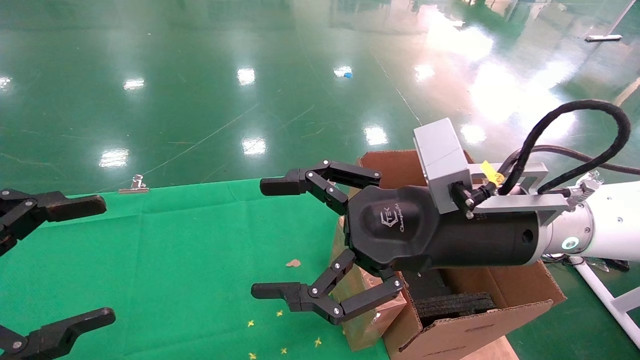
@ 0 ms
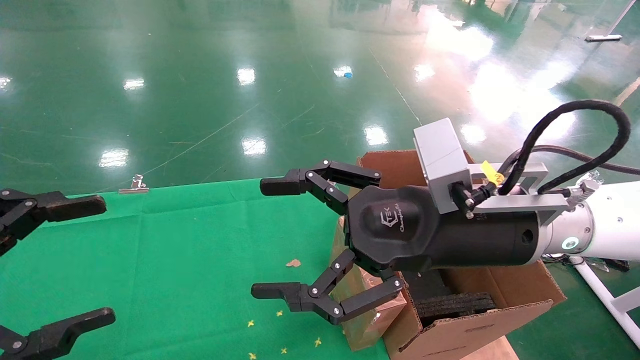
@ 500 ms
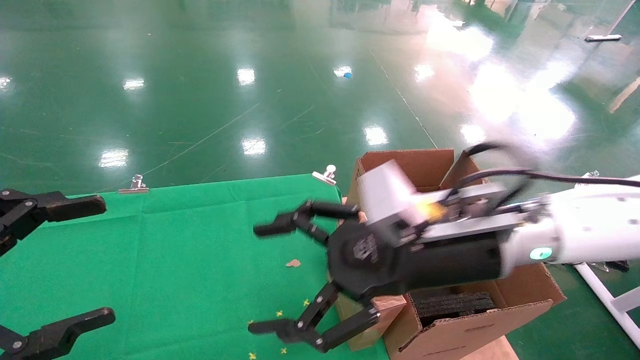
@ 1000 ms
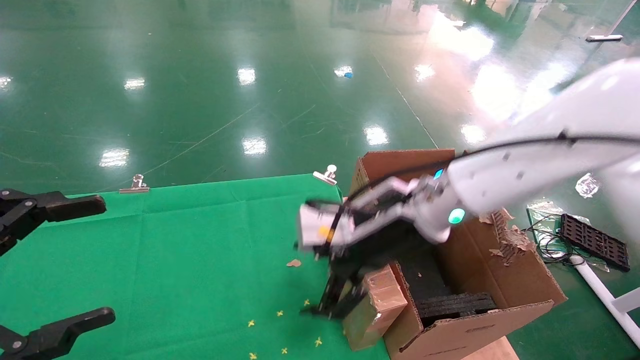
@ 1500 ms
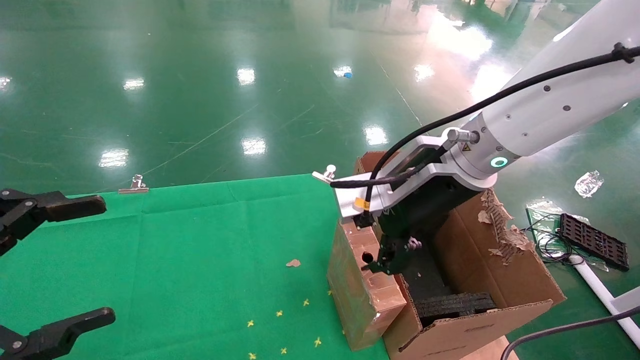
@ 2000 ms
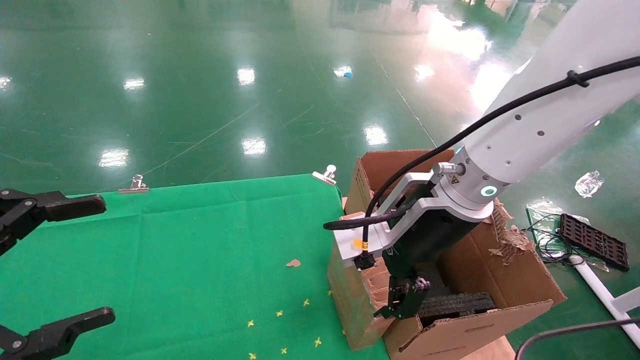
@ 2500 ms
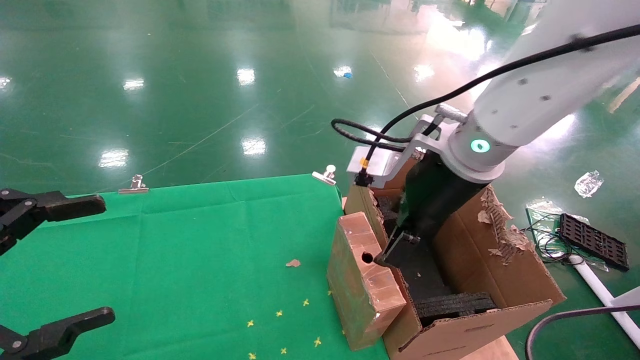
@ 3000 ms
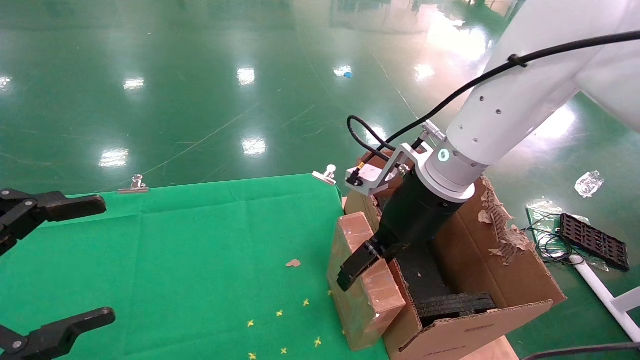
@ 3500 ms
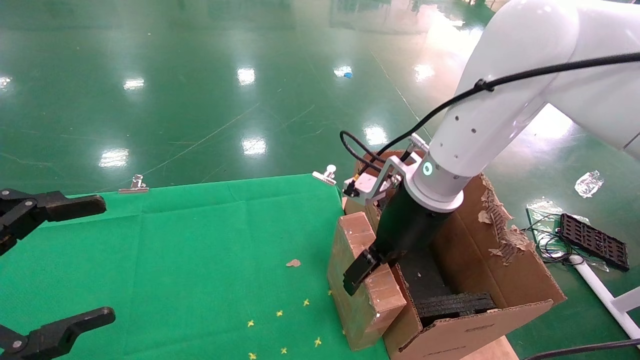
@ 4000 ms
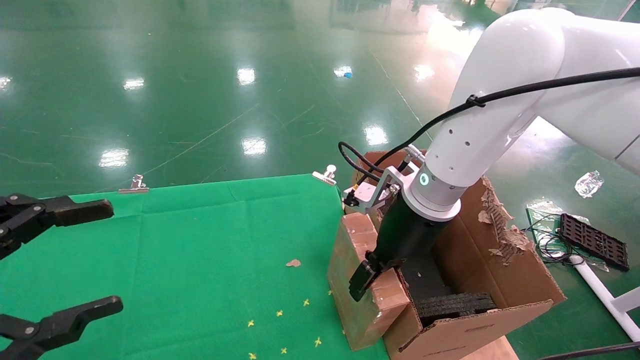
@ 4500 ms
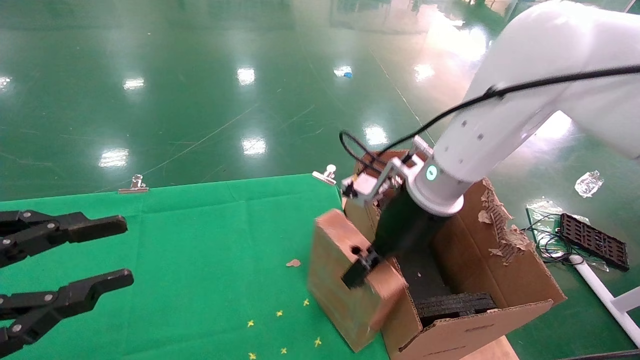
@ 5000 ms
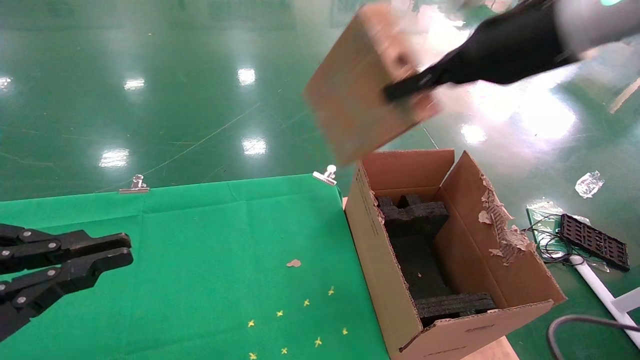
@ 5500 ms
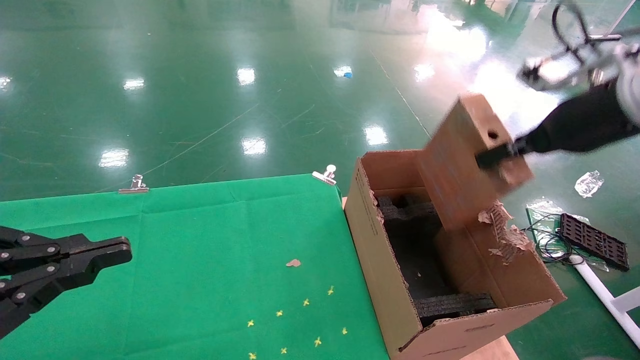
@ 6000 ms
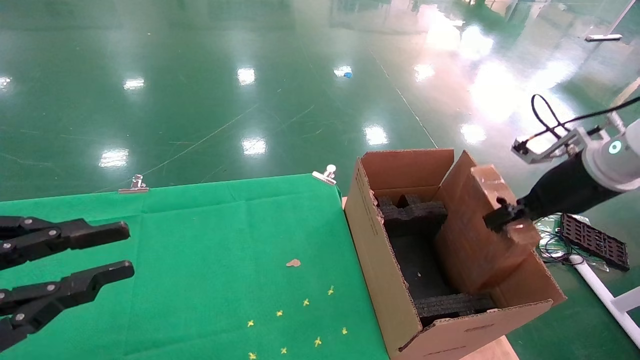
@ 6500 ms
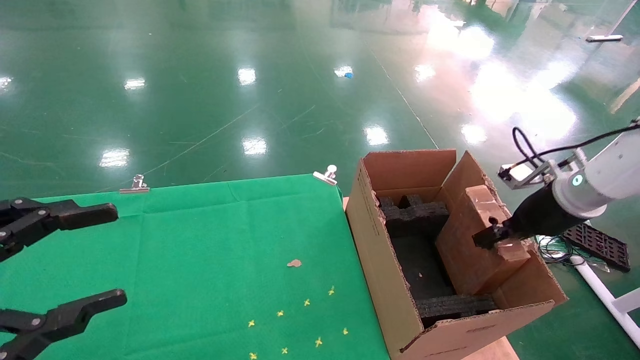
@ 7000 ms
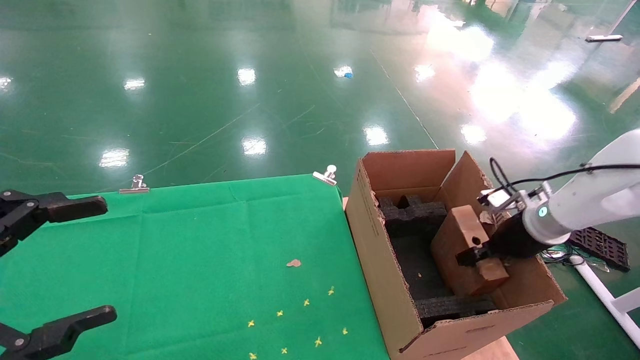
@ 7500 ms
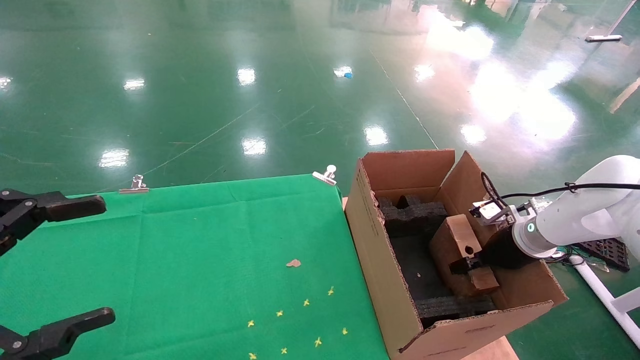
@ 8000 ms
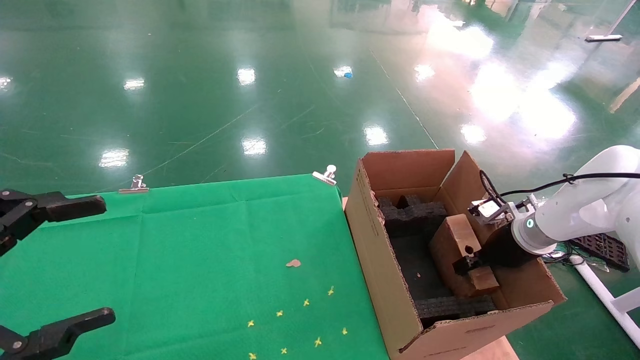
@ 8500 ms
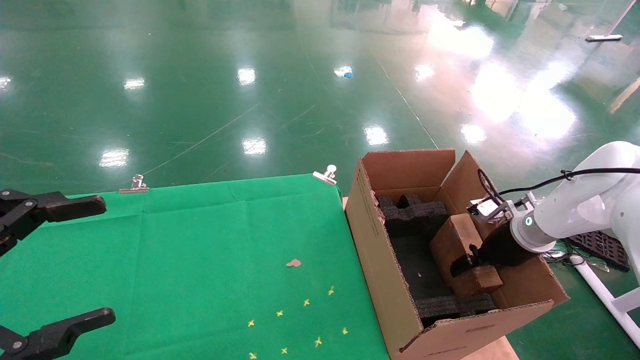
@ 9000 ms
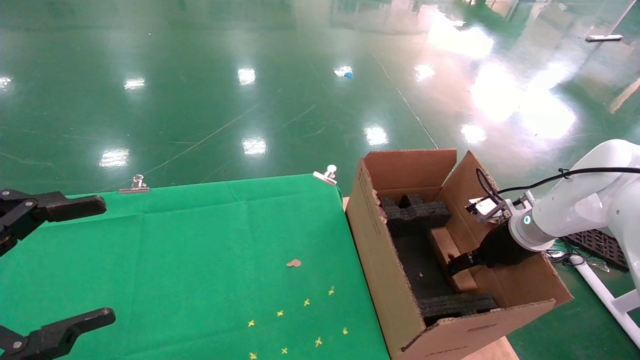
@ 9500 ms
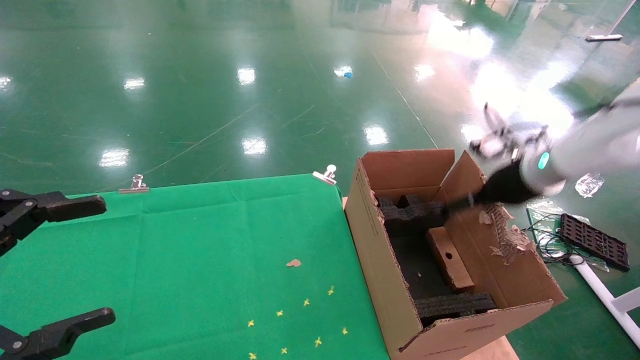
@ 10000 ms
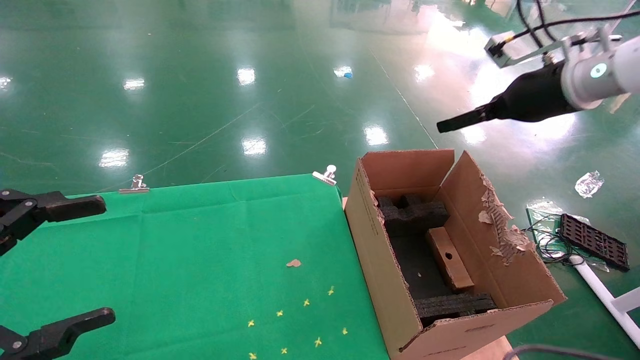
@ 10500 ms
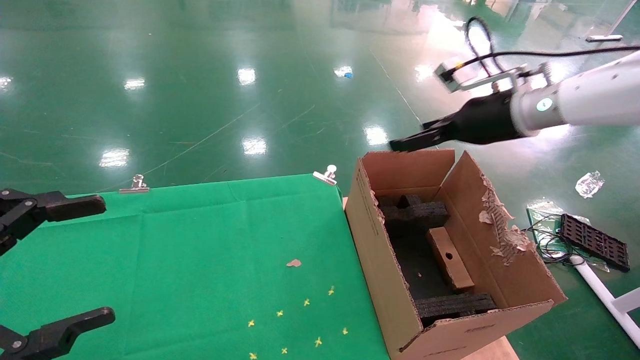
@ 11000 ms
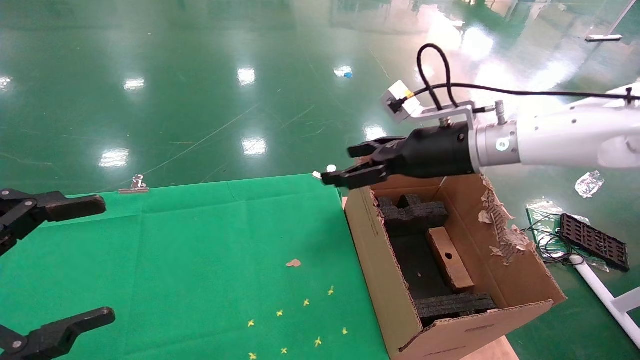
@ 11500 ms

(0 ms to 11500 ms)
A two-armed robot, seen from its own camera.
Task of the whole recording: using a robotic arm to pick up a cardboard box and palace it the carton.
Step, 1000 ms - 4500 ms: Pick up the mouse and the power cord paper box.
Step, 5000 ms - 10000 ms: Place the mouse and the power cord paper box into the container.
0 ms - 2000 ms: The right gripper moves forward, about 5 cm.
2000 ms - 4000 ms: The right gripper changes place by some 5 cm.
4000 ms - 6000 ms: The left gripper closes, while the right gripper heads to the right and upward, covering about 25 cm, and closes its fingers.
6000 ms - 7500 ms: The left gripper opens. The right gripper is displaced downward by roughly 20 cm.
7500 ms - 9500 ms: The right gripper opens up.
9500 ms - 11500 ms: The right gripper goes roughly 20 cm upward and to the left.

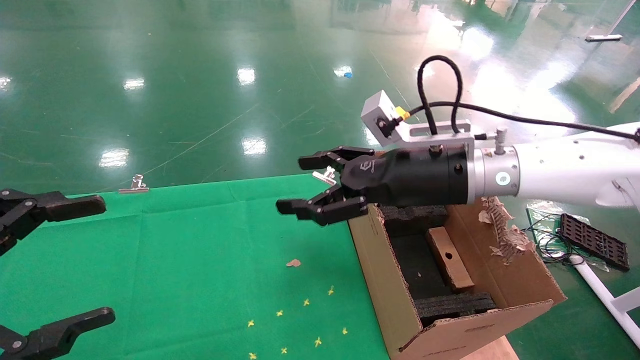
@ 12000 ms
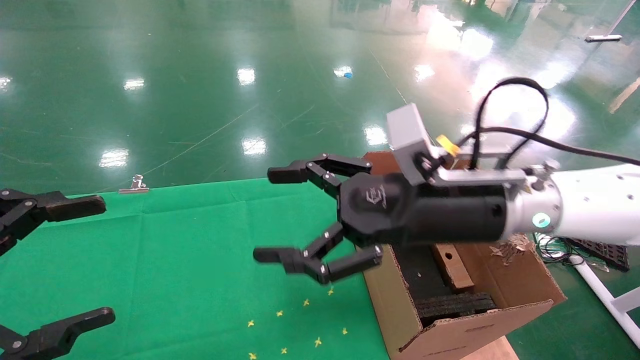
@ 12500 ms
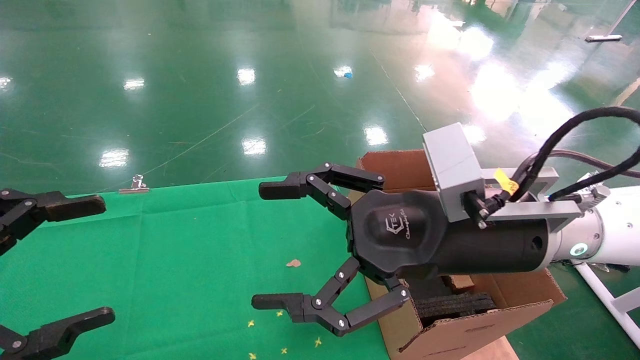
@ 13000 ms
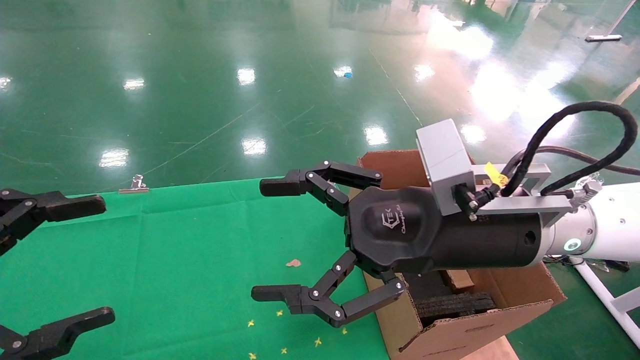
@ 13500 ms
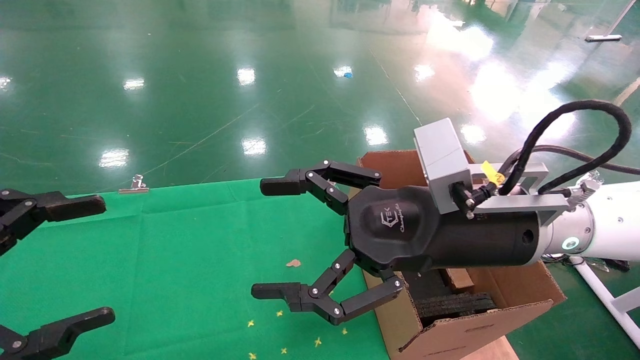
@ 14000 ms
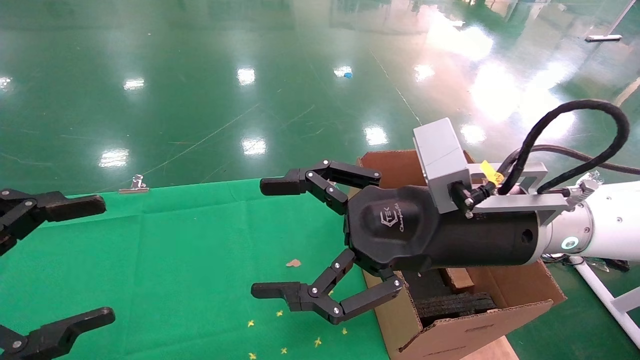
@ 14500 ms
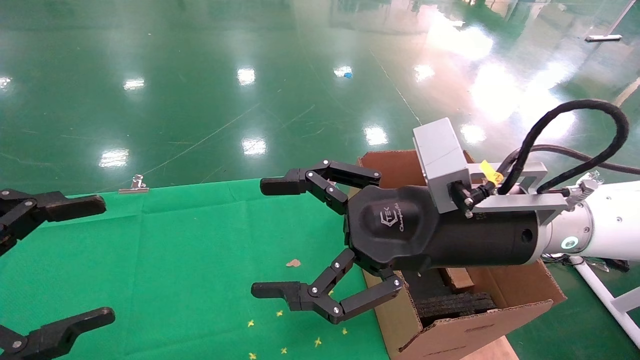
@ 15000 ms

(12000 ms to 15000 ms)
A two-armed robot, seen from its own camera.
Task of the whole recording: using a robotic arm to pick up a cardboard box and palace it the carton.
12000 ms - 13500 ms: The right gripper moves backward, roughly 10 cm.
13500 ms - 15000 ms: Both grippers stay about where they are.
